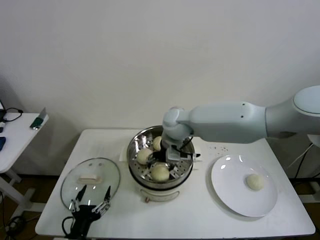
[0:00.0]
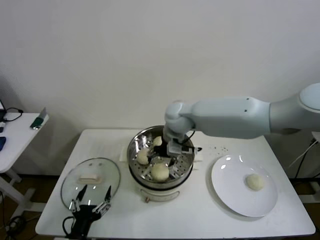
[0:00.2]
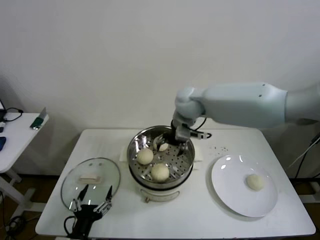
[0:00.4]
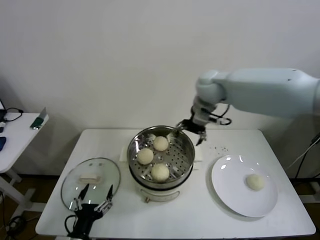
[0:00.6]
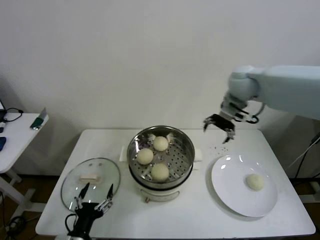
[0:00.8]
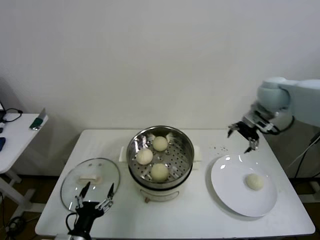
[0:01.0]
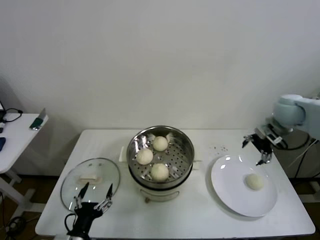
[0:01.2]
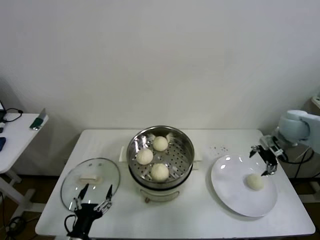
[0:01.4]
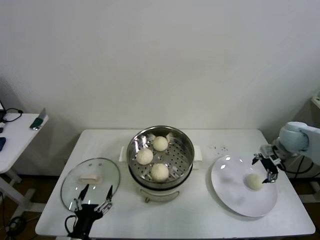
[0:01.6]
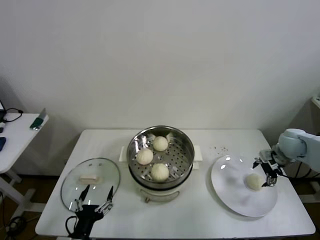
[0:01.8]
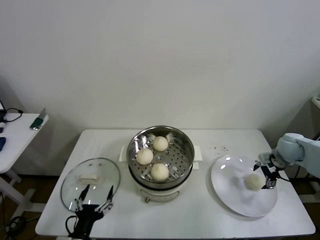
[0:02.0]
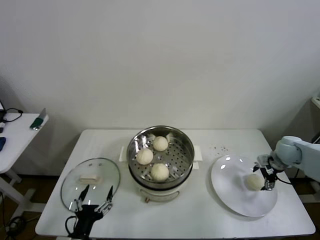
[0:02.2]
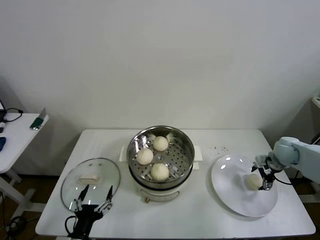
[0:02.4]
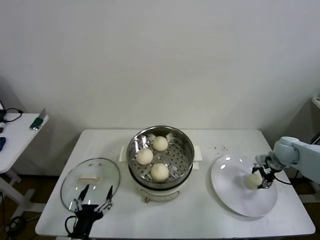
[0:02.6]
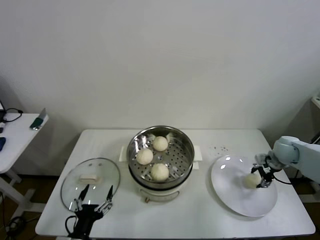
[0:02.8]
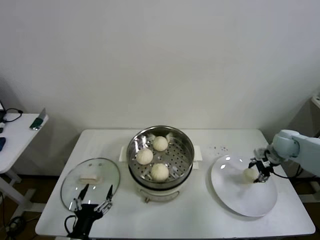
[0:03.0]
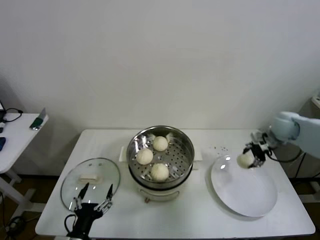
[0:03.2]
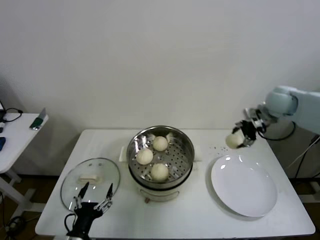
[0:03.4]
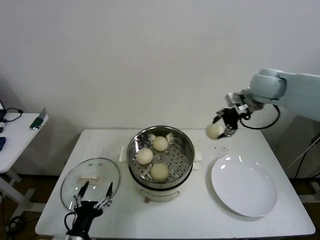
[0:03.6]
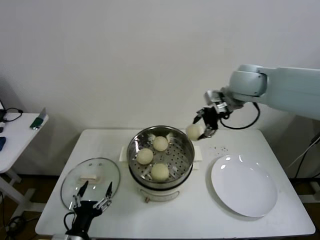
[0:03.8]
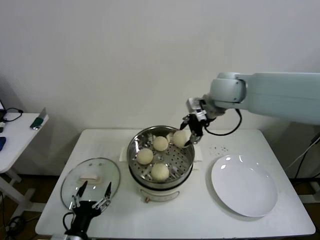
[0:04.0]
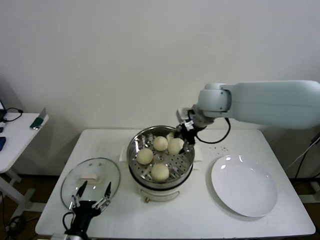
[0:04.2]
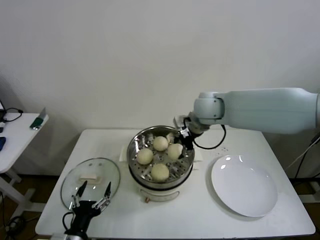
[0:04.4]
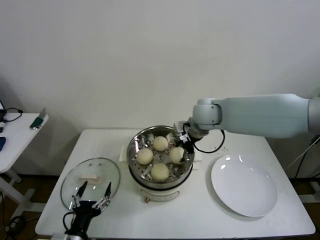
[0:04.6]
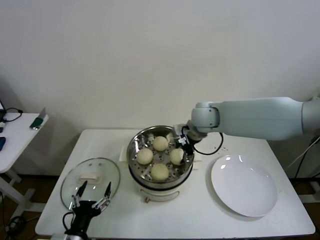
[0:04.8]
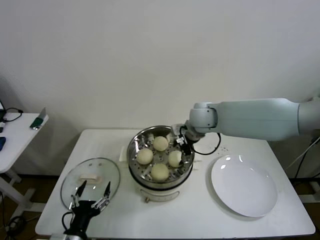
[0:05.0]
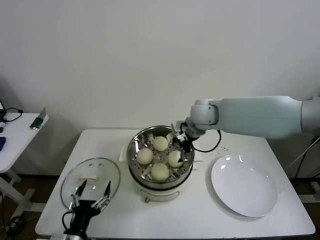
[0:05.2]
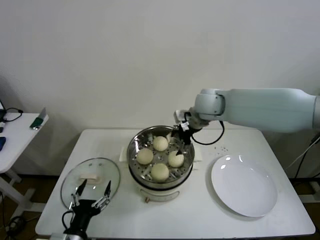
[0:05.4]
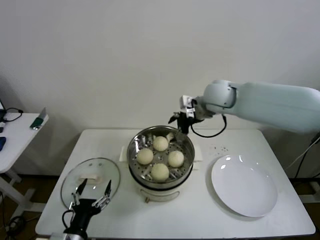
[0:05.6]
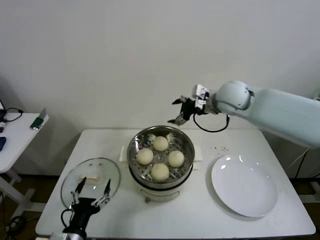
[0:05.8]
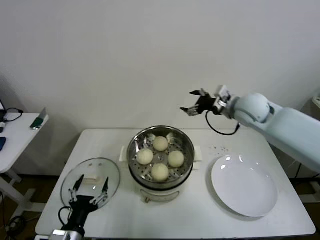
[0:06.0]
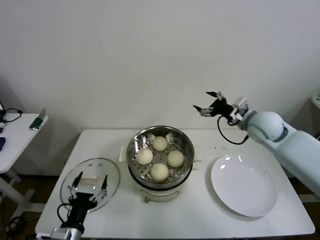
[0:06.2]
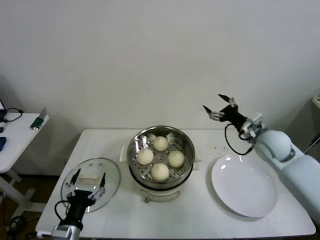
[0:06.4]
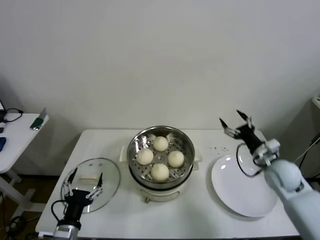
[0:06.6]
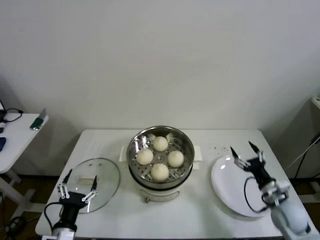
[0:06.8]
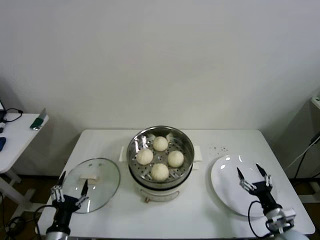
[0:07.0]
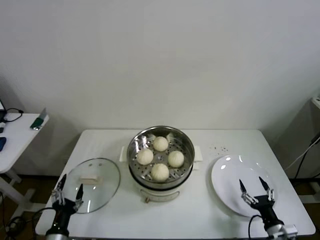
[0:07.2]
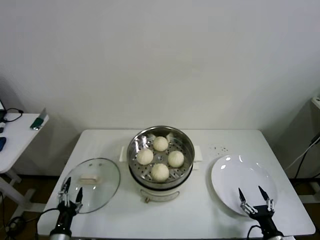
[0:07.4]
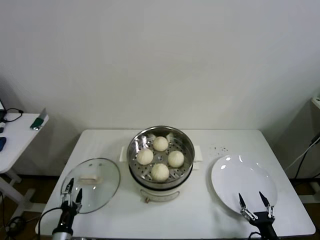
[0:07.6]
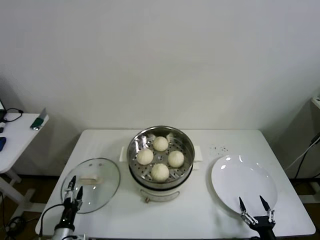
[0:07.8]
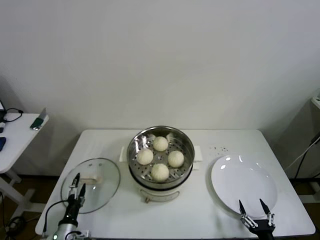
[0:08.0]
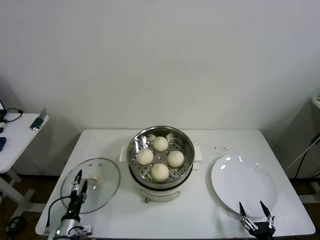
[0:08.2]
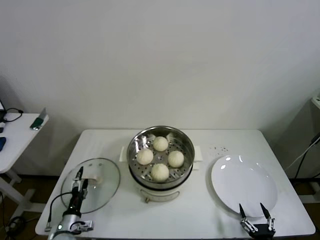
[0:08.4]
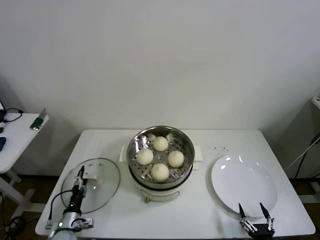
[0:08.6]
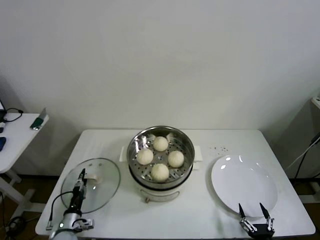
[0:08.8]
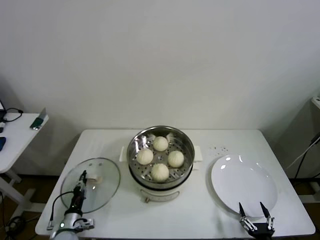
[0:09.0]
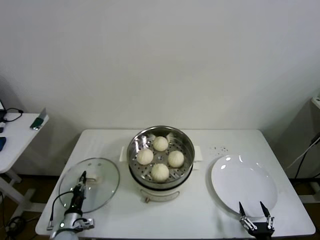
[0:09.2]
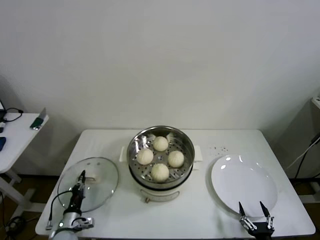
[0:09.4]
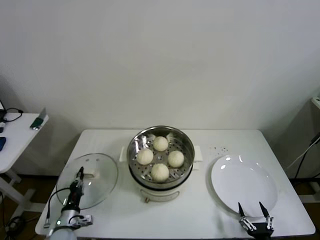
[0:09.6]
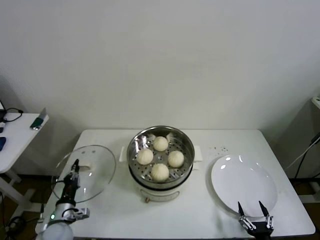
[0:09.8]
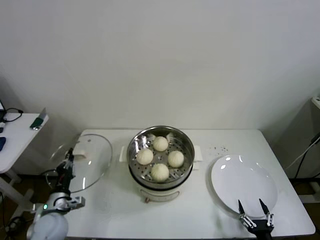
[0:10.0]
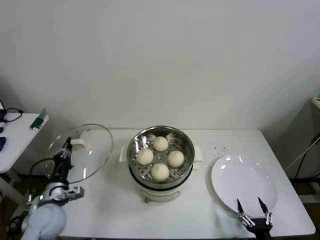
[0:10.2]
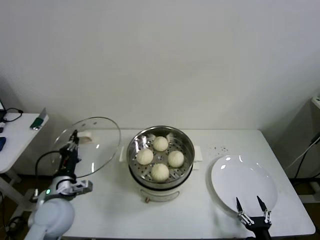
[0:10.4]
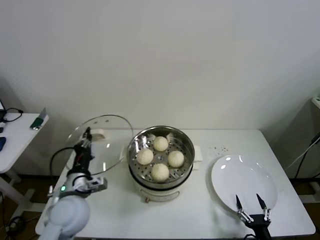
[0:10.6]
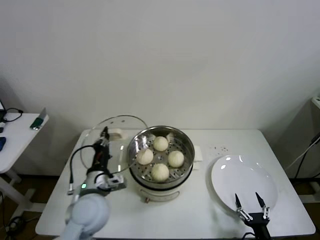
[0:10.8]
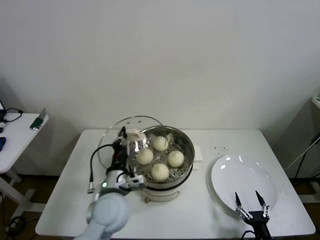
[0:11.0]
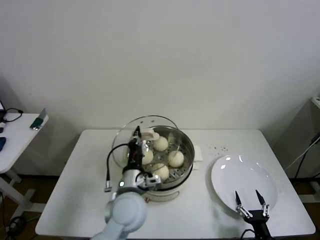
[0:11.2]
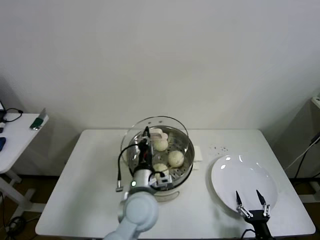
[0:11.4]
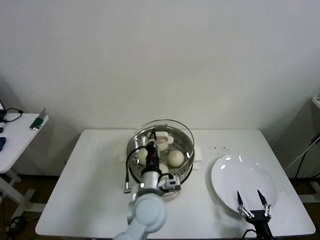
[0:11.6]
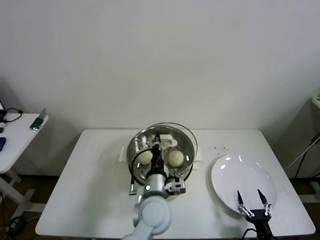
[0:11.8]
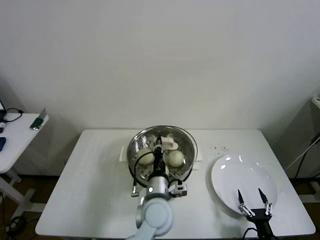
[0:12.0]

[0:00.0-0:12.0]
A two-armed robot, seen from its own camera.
Step, 0.4 to 2.6 s: Grasp the baozi in the plate with right gripper.
Step, 2.8 to 5.2 s: Place the baozi on the steamer with right gripper.
Step, 5.4 to 9.2 s: Grasp the pot lid with left gripper.
0.0 to 1.6 s: The right gripper shifts some 40 cm to the right.
1.6 to 3.0 s: The right gripper closes up.
3.0 to 4.4 s: The right gripper travels to the left and upward by about 35 cm.
4.4 to 6.0 s: The right gripper shifts approximately 10 cm to the right, and opens its fingers.
6.0 to 7.6 s: The left gripper travels downward and to the left by about 15 cm. Meanwhile the right gripper shifts about 50 cm backward and downward.
7.6 to 9.0 s: The left gripper is displaced forward by about 10 cm, and closes up.
9.0 to 10.4 s: The left gripper is displaced upward by roughly 20 cm.
10.4 to 12.0 s: The left gripper is displaced to the right by roughly 30 cm.

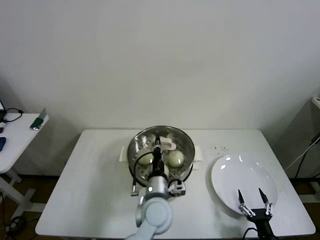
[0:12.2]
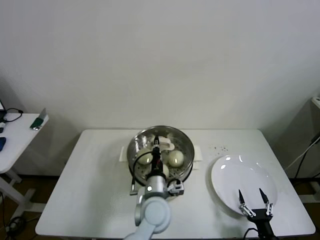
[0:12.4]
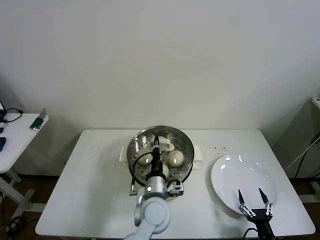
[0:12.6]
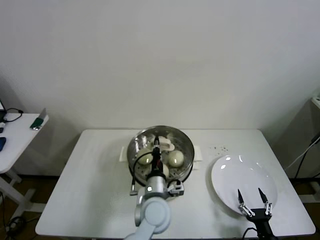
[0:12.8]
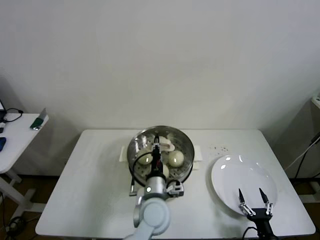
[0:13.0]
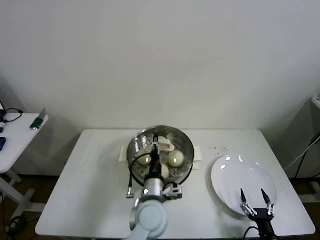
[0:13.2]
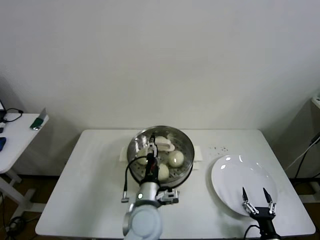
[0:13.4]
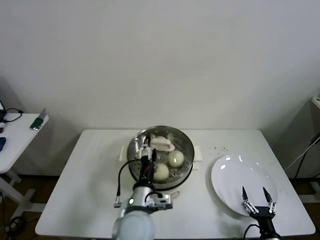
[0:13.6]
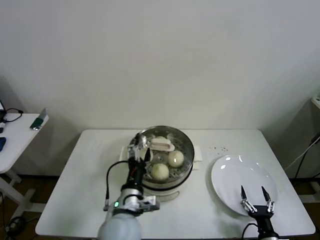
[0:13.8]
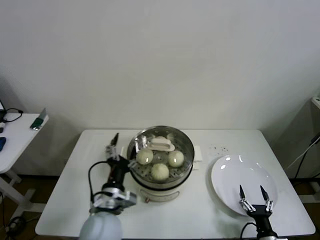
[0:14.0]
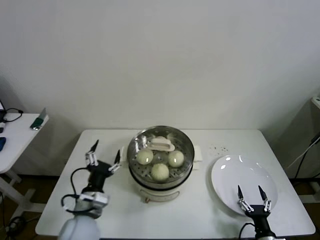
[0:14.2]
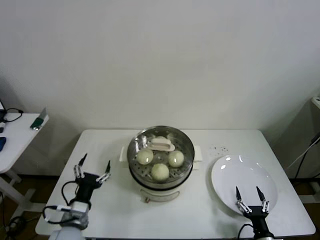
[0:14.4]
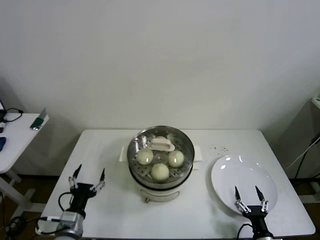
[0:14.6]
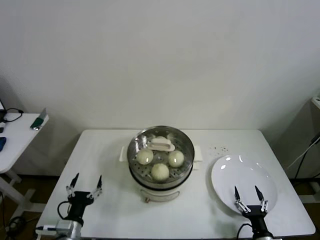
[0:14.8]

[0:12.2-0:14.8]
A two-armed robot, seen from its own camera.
12.2 to 13.4 s: The left gripper opens its fingers.
13.4 to 14.8 s: The left gripper heads to the left, covering about 25 cm.

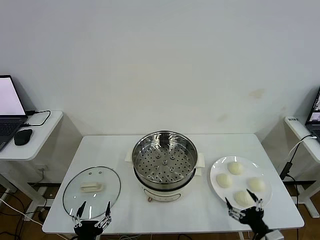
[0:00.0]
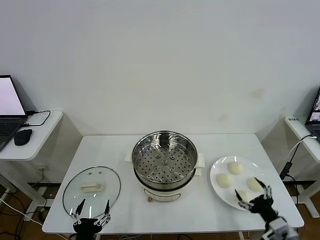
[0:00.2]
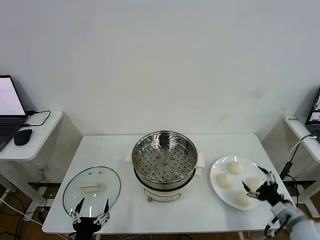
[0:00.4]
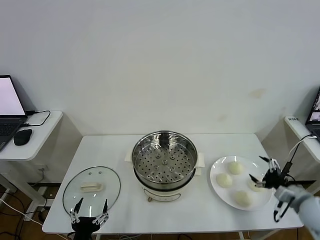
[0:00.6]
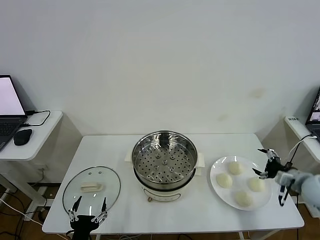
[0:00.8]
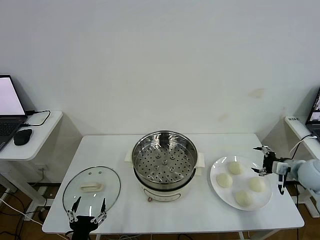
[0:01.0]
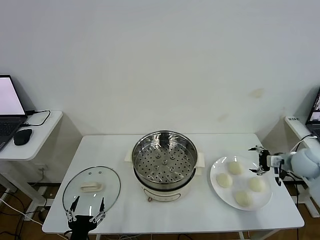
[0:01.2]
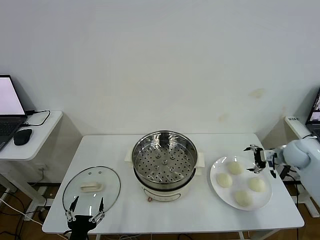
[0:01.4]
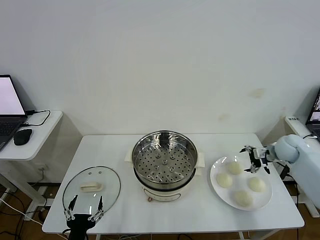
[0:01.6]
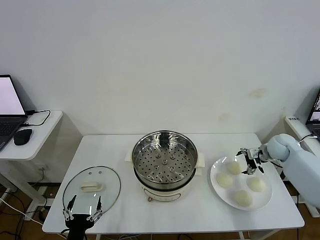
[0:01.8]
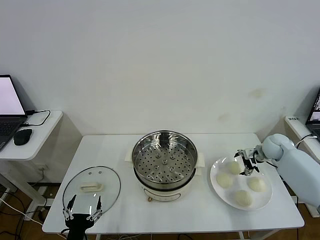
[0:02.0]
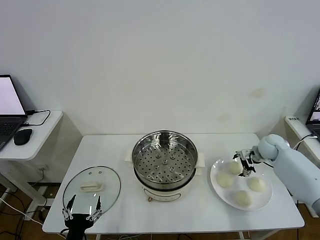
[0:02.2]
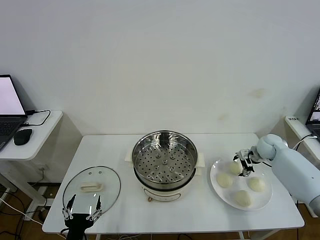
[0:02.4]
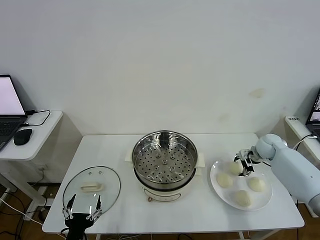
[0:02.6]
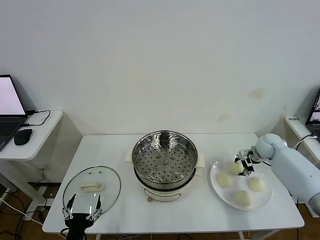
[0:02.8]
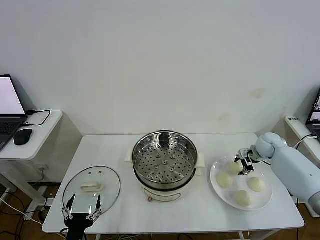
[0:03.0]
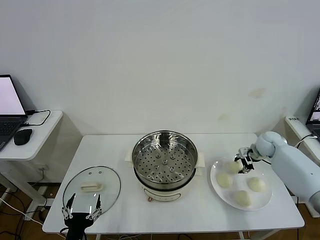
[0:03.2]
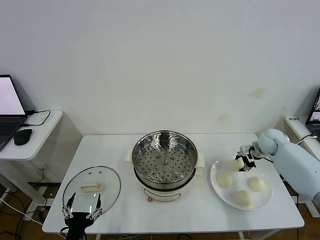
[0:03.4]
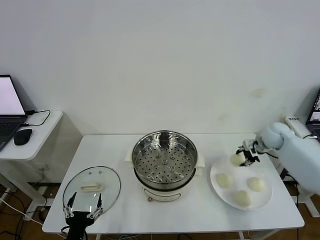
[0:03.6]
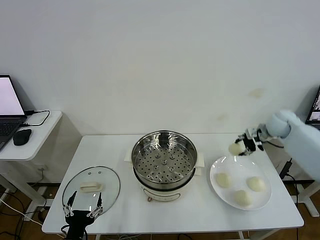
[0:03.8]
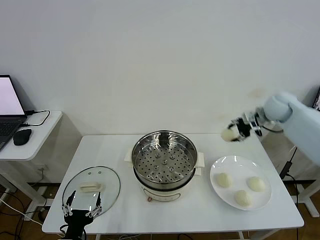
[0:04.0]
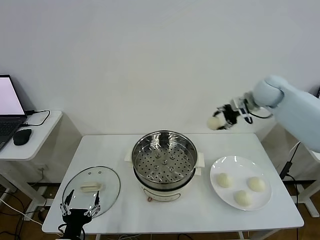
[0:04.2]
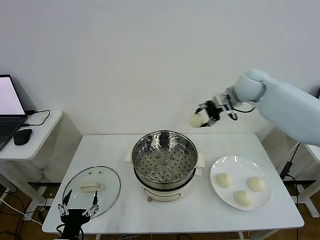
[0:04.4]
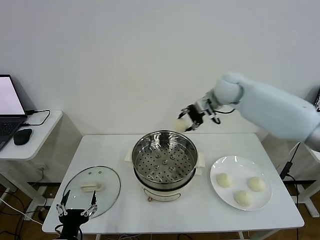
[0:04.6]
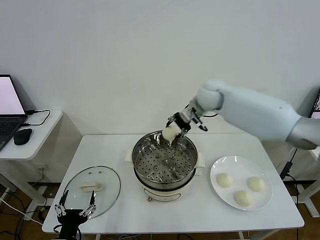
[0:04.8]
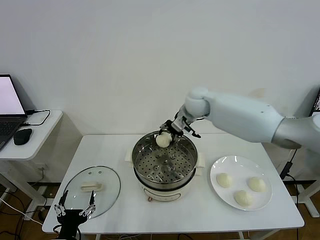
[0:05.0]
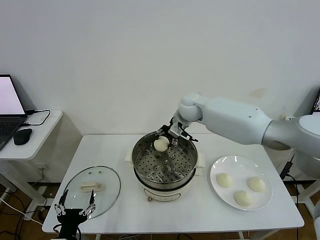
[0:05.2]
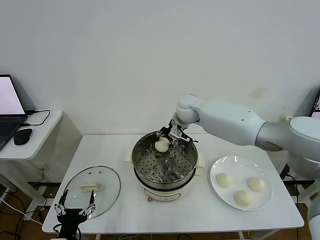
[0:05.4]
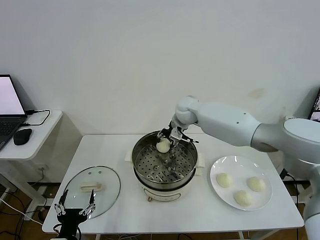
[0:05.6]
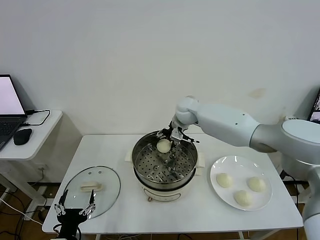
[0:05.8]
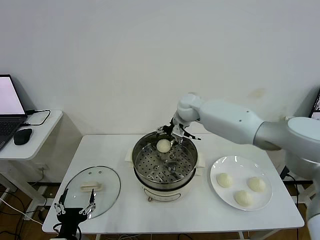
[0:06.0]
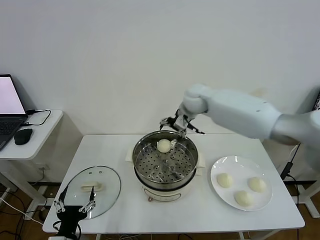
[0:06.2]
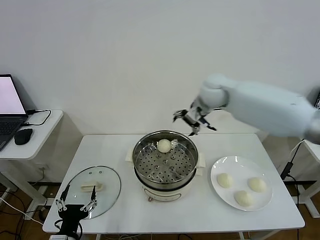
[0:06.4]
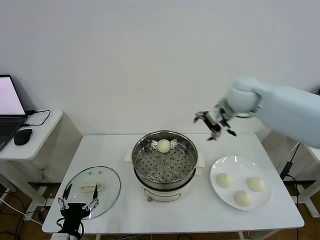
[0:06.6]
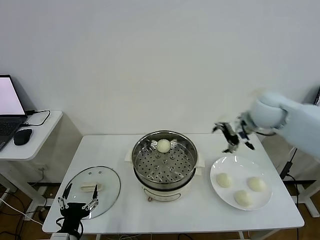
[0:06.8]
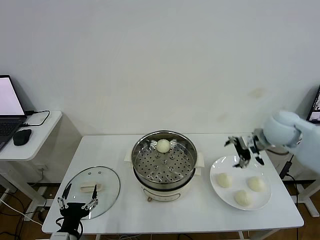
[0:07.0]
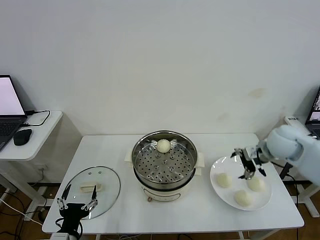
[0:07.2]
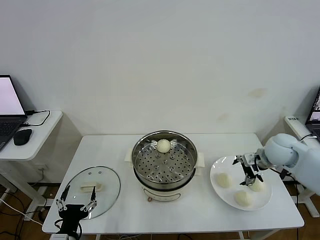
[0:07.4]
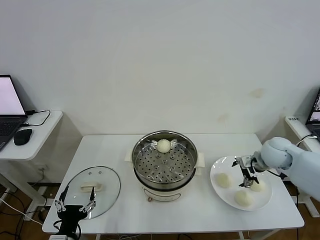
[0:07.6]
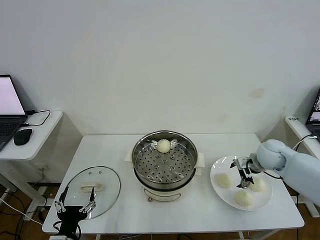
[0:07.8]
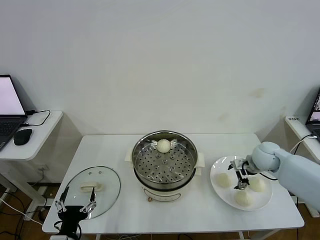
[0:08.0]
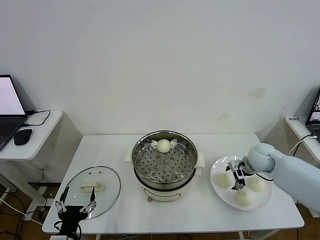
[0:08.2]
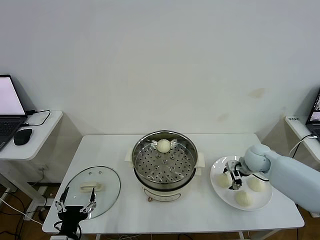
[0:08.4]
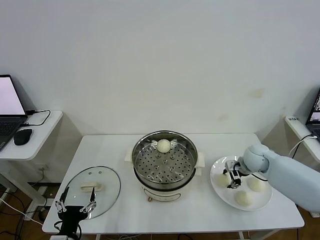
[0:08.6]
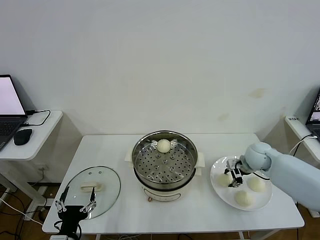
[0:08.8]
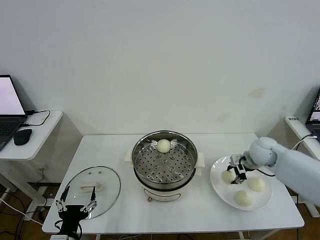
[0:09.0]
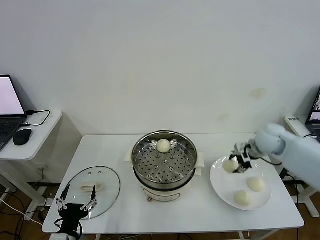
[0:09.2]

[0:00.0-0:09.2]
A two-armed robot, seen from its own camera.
Step, 0.0 to 2.8 s: Grasp the baozi in the plate with right gripper.
Step, 3.2 to 6.0 s: Place the baozi on the steamer with right gripper.
Step, 6.4 to 8.4 s: Grasp the baozi in the plate with right gripper.
1.6 to 3.0 s: The right gripper shifts by approximately 5 cm, and closes.
3.0 to 4.6 s: The right gripper heads to the left and upward, covering roughly 35 cm.
4.6 to 6.2 s: The right gripper goes downward and returns, some 10 cm each way, and opens up.
6.2 to 7.6 s: The right gripper moves to the right, downward and backward, approximately 30 cm.
7.6 to 9.2 s: The right gripper is displaced upward by some 5 cm, and closes.
